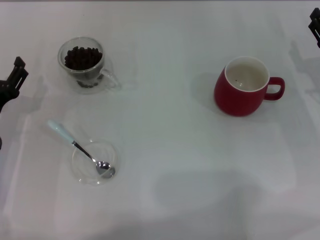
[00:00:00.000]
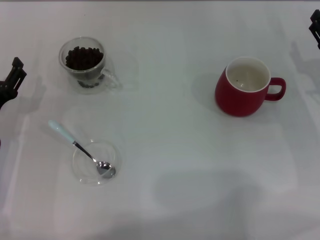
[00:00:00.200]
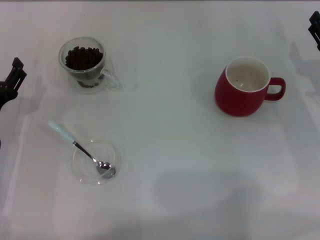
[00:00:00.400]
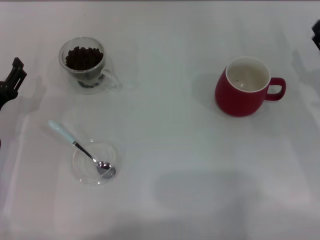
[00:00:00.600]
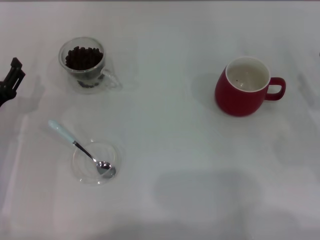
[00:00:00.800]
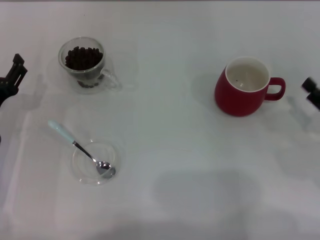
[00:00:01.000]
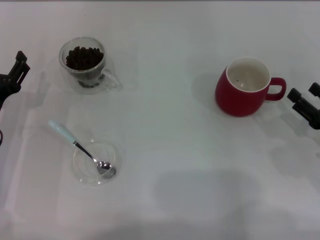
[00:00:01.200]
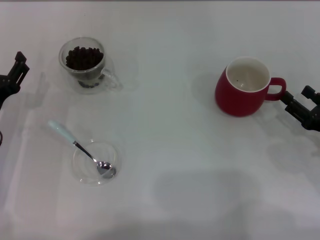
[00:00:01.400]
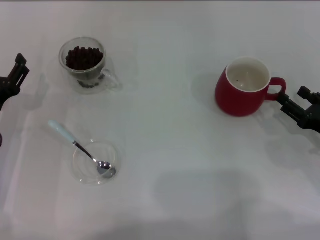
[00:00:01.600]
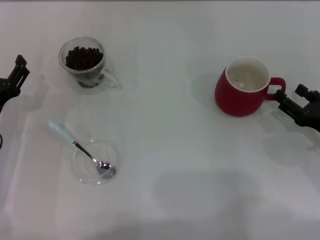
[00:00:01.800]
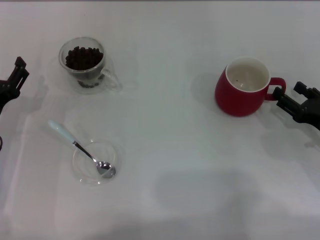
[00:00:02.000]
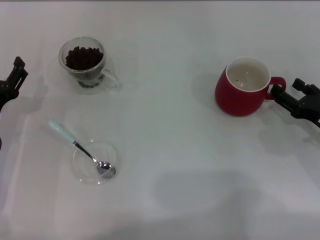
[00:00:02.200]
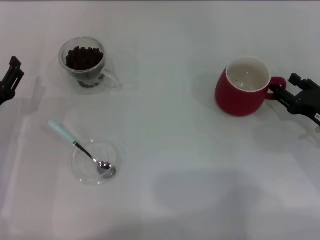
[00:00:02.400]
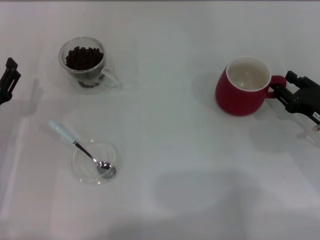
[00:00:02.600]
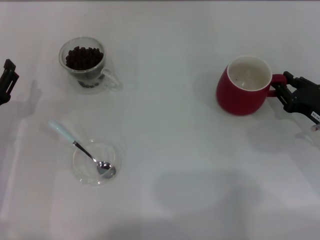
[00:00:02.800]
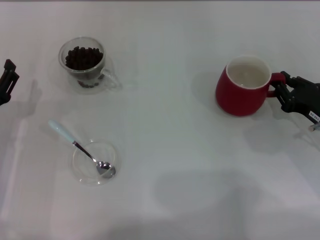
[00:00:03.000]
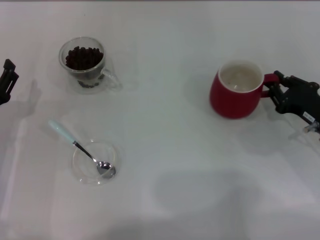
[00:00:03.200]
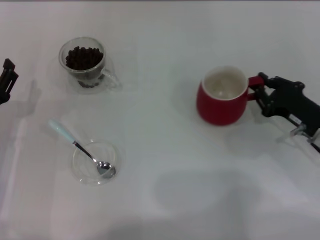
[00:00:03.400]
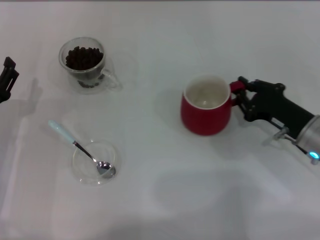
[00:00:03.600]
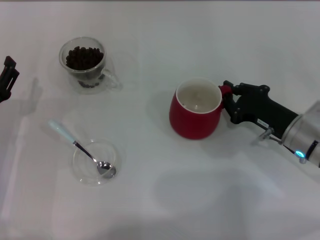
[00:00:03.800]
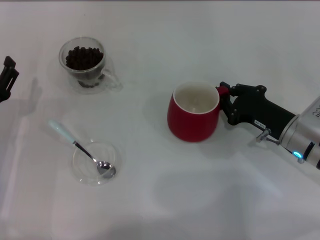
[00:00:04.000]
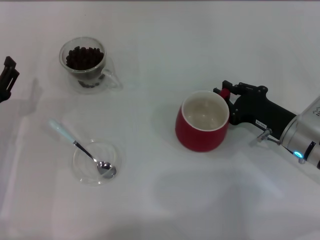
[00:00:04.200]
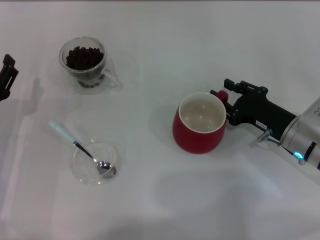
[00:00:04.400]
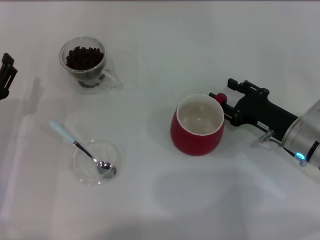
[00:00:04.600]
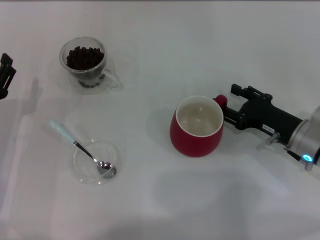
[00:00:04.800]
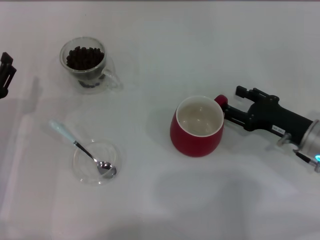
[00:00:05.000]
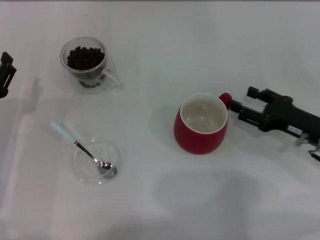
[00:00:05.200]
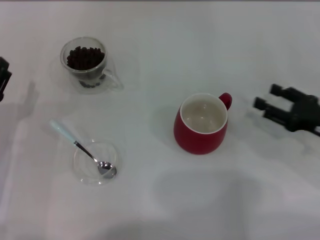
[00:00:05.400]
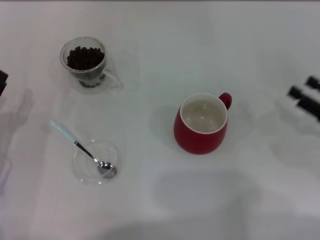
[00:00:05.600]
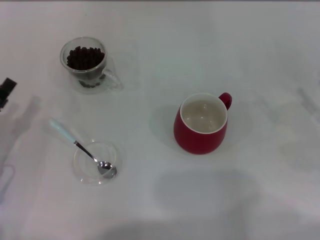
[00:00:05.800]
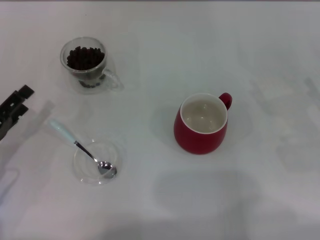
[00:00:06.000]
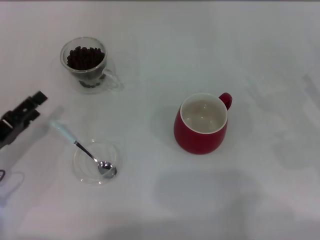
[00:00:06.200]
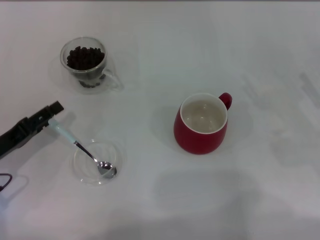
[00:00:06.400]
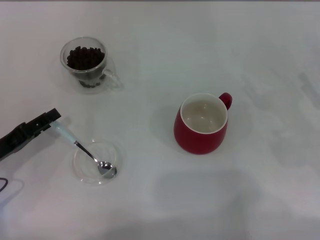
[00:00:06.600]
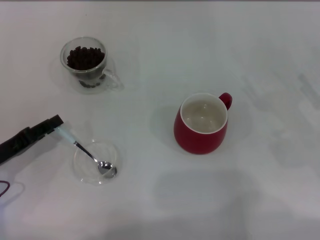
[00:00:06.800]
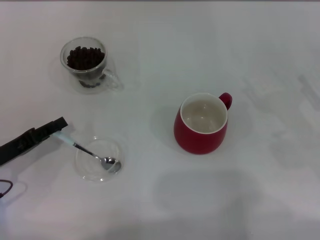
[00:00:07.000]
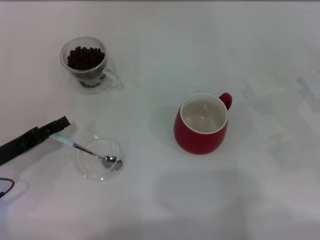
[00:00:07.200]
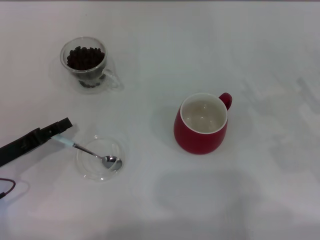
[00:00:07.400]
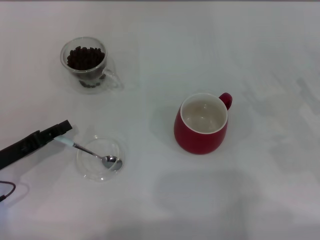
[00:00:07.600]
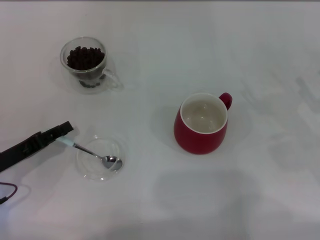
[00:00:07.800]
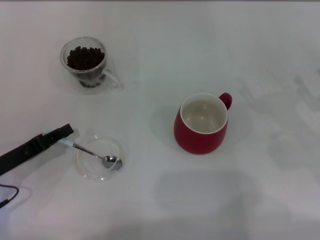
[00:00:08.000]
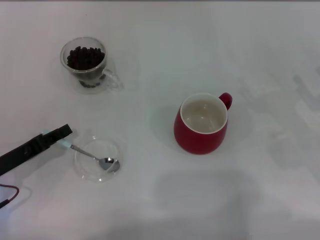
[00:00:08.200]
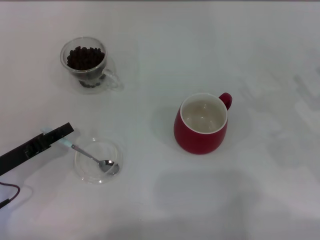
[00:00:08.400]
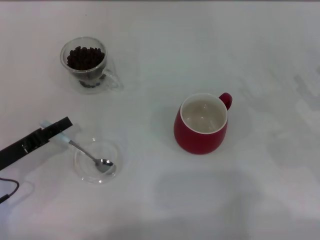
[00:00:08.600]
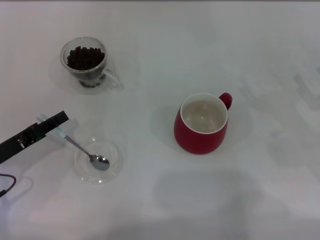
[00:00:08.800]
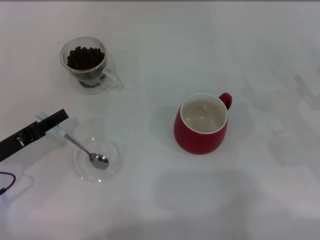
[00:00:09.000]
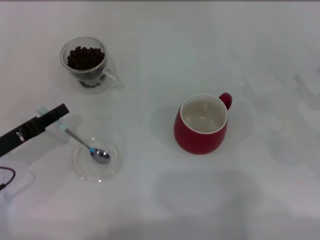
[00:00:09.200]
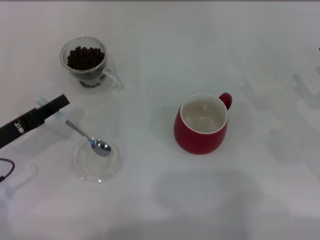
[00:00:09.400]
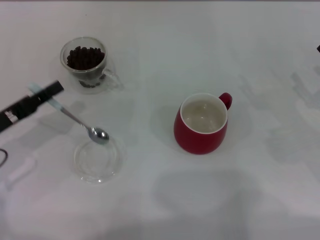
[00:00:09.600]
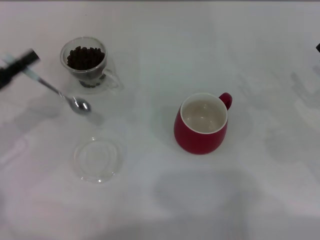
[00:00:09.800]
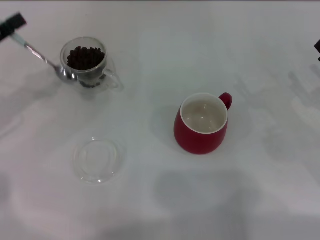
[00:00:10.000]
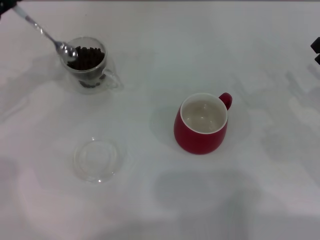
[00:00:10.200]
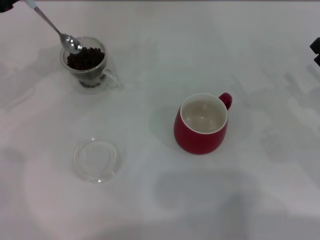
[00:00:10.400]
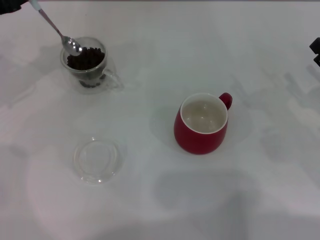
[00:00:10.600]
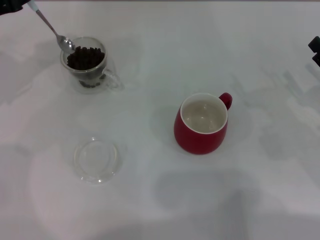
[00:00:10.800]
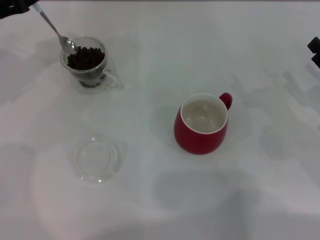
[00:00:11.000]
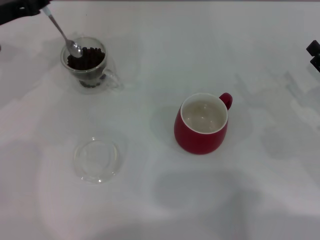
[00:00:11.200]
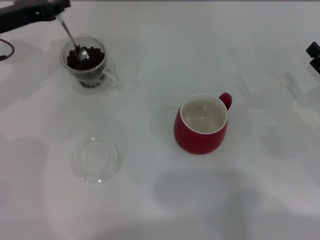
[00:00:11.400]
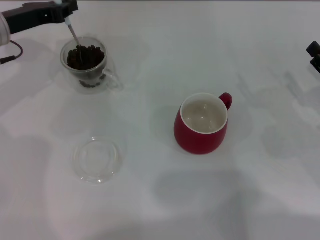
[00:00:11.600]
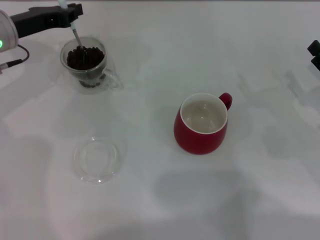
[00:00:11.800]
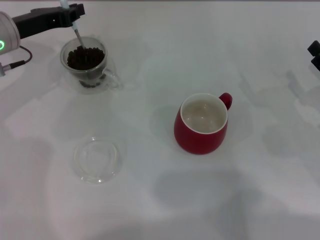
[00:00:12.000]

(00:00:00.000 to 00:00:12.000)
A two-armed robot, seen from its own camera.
Task of the whole recording: Use a blue spoon to take out the coffee beans from the glass and pour them into the red cup.
Step, 00:00:05.400 - 00:00:09.200: Pick up the spoon with the right gripper.
00:00:00.000 - 00:00:01.600: The right gripper travels backward by approximately 10 cm.
00:00:01.600 - 00:00:03.000: The right gripper closes its fingers.
00:00:03.000 - 00:00:04.400: The right gripper is displaced to the left by about 5 cm.
00:00:04.400 - 00:00:06.000: The right gripper travels to the right and backward by roughly 15 cm, and opens its fingers.
00:00:06.000 - 00:00:07.600: The left gripper closes its fingers.
00:00:07.600 - 00:00:09.000: The grippers stay close to where they were, moving slightly.
00:00:09.000 - 00:00:10.400: The left gripper shifts approximately 20 cm forward and upward.
00:00:10.400 - 00:00:12.000: The left gripper heads to the right, covering roughly 5 cm.

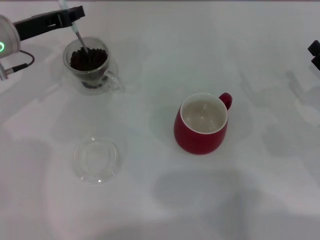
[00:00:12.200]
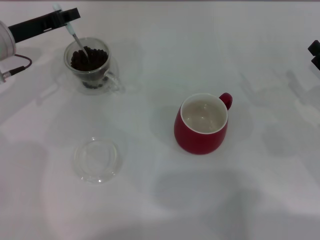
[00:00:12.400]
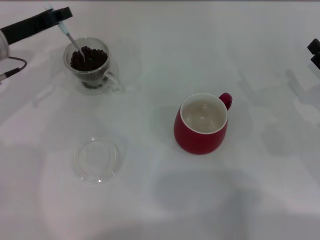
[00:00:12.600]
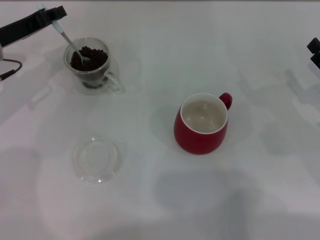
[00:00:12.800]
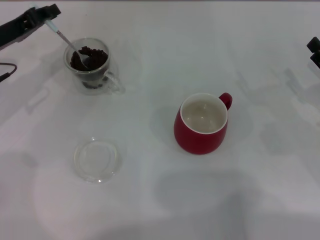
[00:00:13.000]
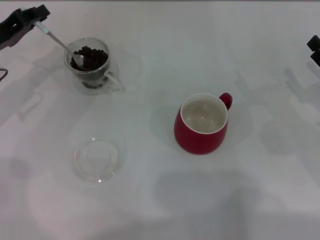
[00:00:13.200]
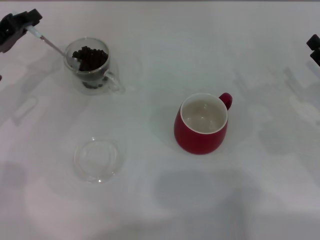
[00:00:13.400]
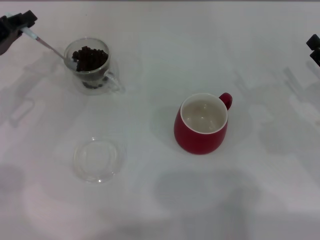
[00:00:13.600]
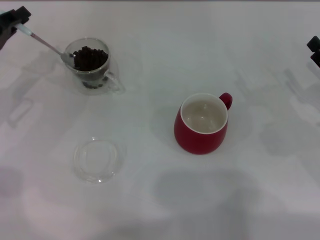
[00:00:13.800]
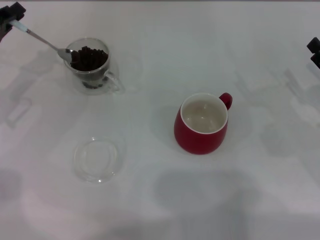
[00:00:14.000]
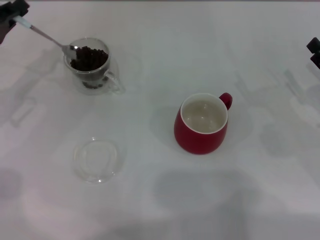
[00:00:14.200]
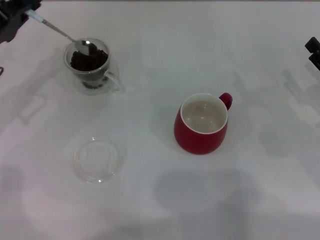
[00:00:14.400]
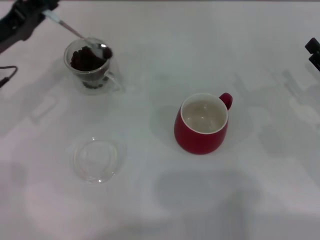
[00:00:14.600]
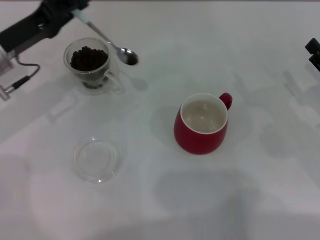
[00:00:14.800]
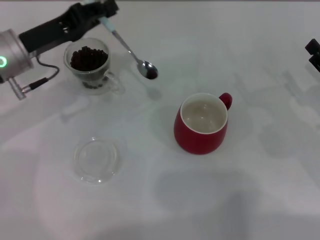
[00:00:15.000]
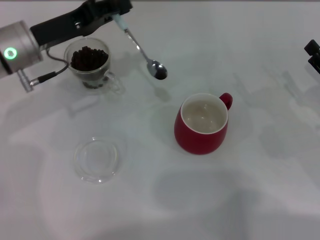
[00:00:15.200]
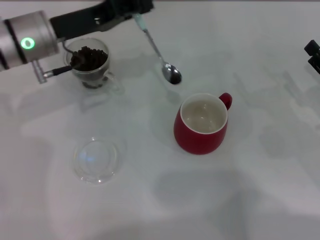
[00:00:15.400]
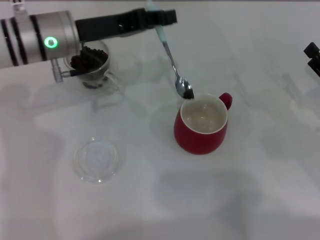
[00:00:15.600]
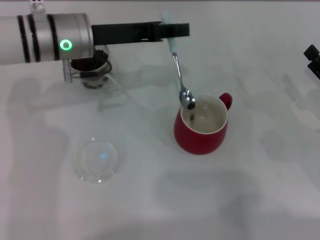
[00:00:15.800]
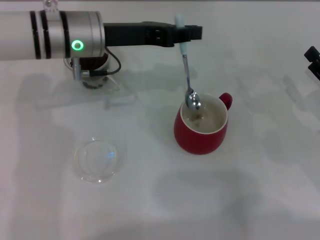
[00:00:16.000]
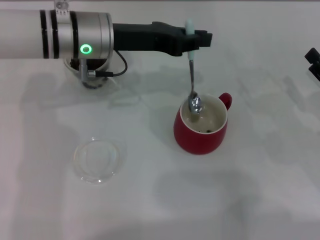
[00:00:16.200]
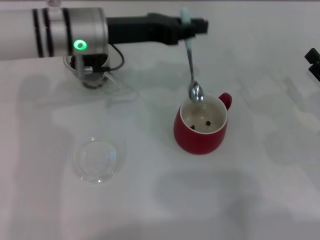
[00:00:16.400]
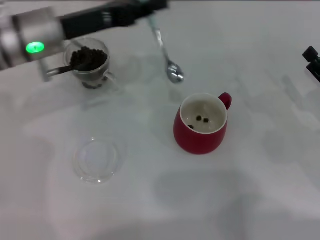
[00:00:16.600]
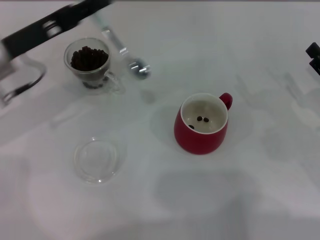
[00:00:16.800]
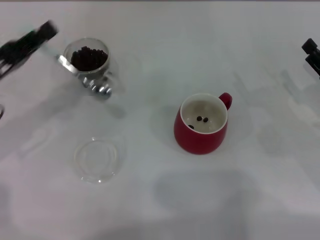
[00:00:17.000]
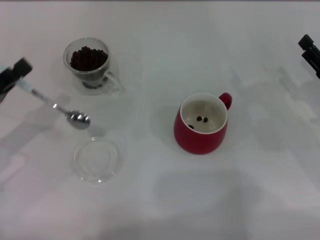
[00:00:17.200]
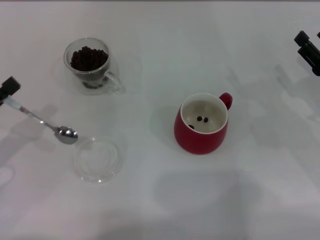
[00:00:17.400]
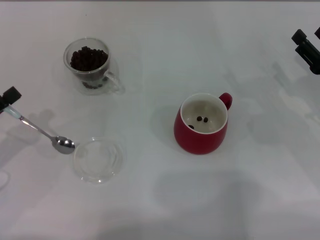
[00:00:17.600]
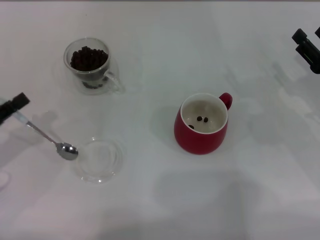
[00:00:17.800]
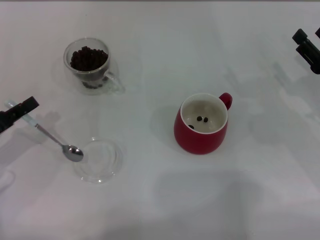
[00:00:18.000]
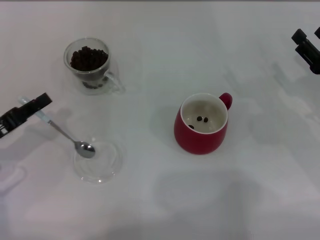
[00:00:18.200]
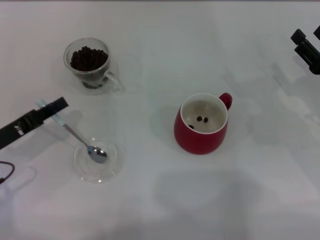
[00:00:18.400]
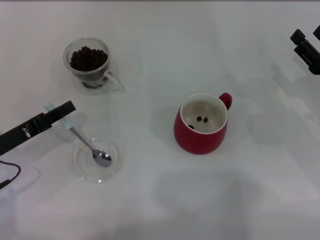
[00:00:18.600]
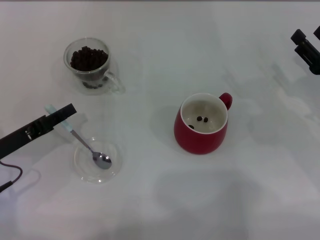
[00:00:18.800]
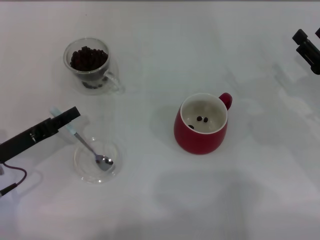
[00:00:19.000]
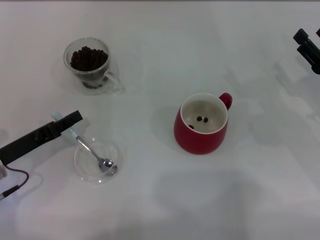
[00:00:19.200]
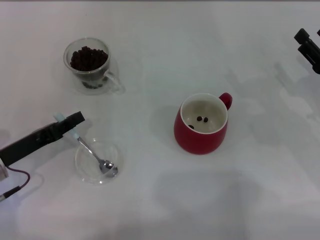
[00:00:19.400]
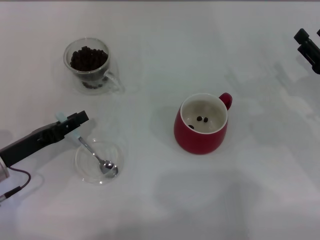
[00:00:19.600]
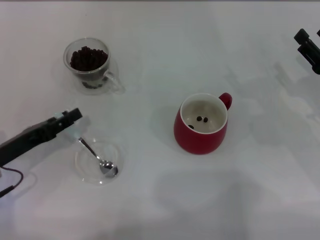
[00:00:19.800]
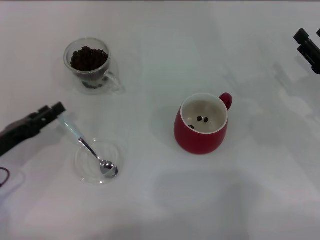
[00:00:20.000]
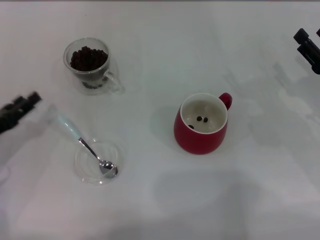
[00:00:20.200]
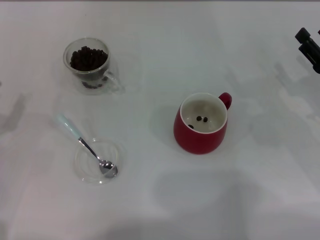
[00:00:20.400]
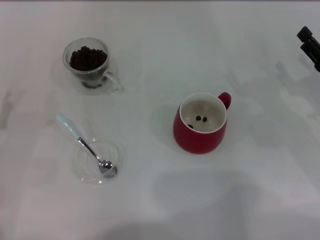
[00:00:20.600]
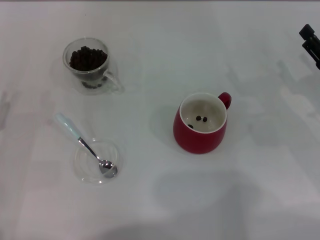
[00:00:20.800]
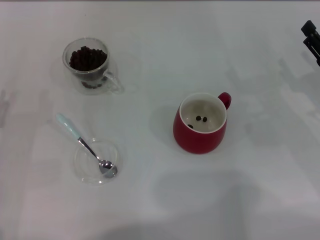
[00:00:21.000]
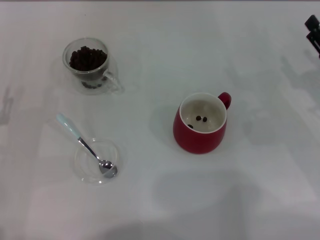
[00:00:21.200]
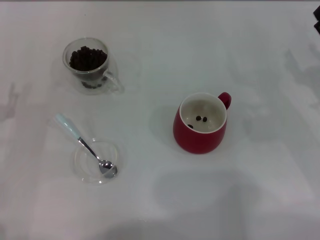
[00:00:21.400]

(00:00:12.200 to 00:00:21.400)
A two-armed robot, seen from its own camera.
Task of the whole recording: Use a blue spoon to take out the coffee beans from the glass and pour them into the red cup.
00:00:12.200 - 00:00:13.800: The left gripper is displaced to the left and backward by some 10 cm.
00:00:13.800 - 00:00:15.200: The left gripper shifts approximately 10 cm to the right.
00:00:15.200 - 00:00:16.800: The left gripper travels to the right and back again, about 10 cm each way.
00:00:16.800 - 00:00:18.400: The left gripper is displaced backward, downward and to the left by approximately 15 cm.
00:00:18.400 - 00:00:19.800: The grippers stay close to where they were, moving slightly.
00:00:19.800 - 00:00:21.400: The left gripper opens.
